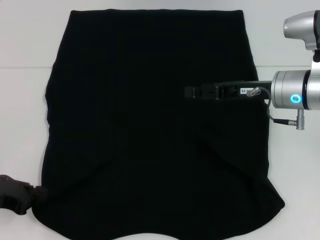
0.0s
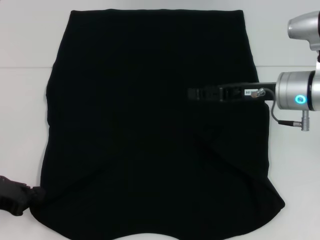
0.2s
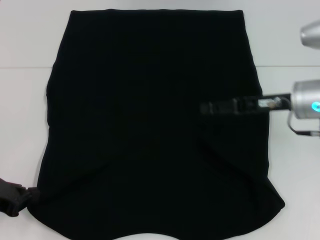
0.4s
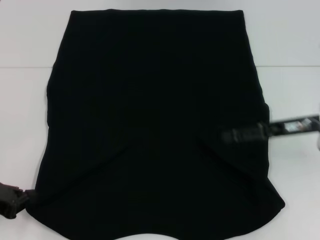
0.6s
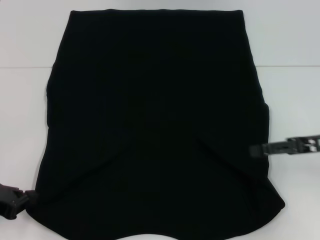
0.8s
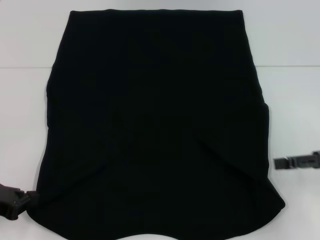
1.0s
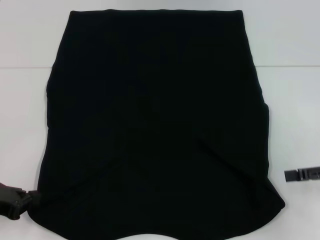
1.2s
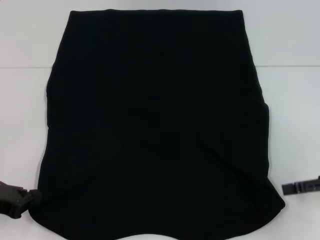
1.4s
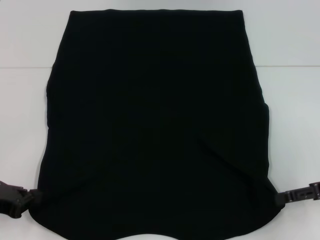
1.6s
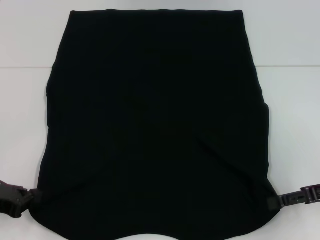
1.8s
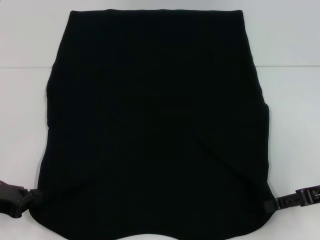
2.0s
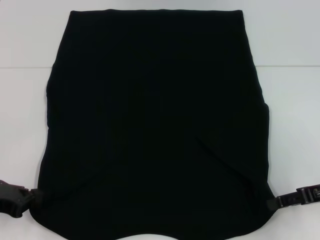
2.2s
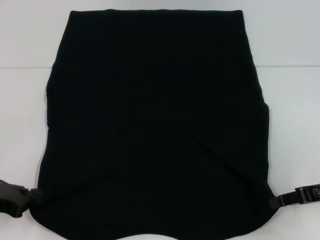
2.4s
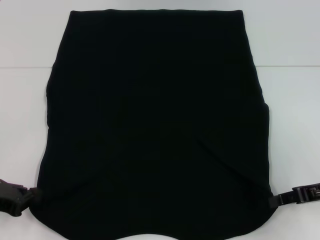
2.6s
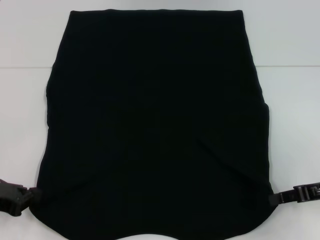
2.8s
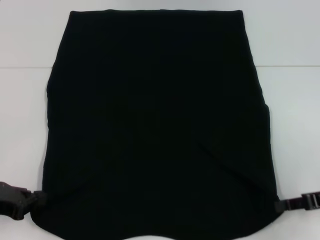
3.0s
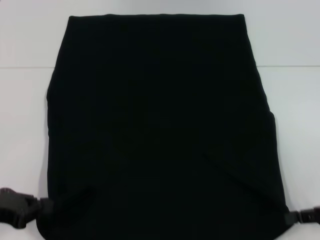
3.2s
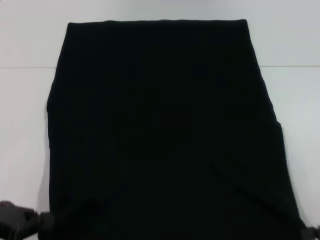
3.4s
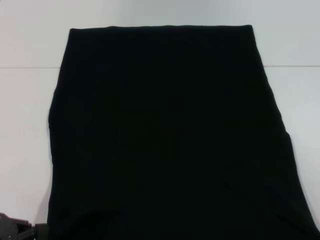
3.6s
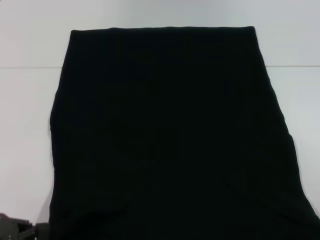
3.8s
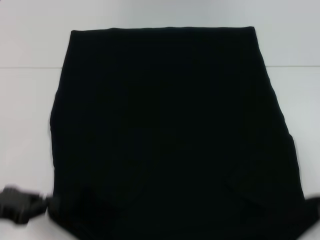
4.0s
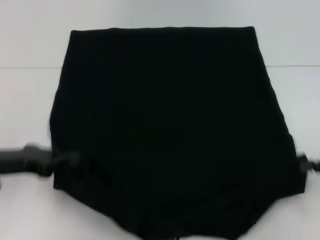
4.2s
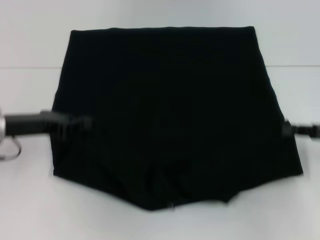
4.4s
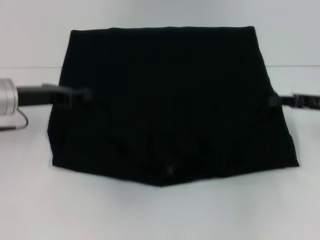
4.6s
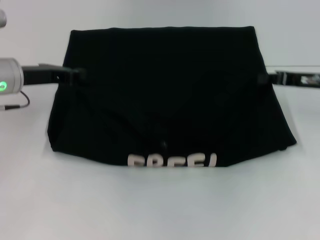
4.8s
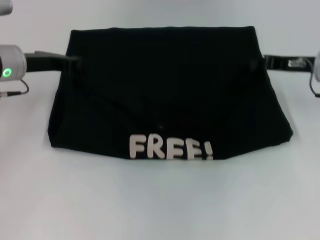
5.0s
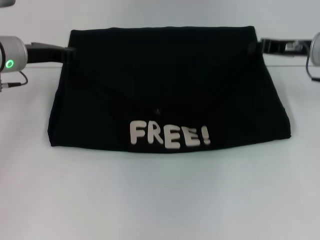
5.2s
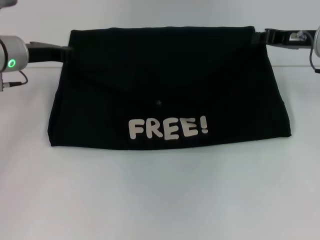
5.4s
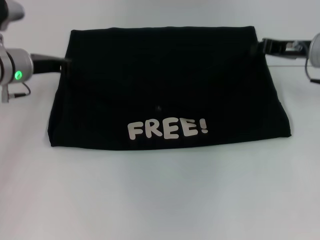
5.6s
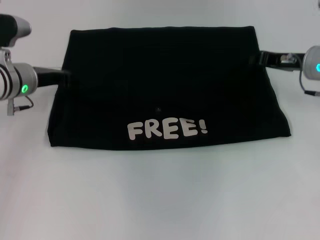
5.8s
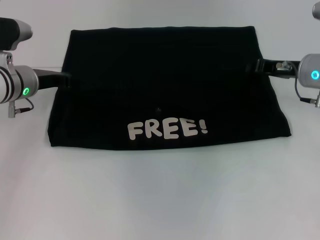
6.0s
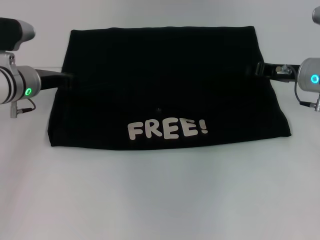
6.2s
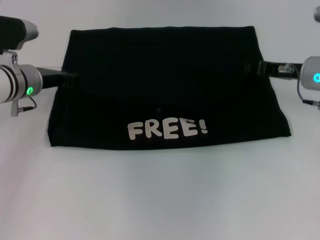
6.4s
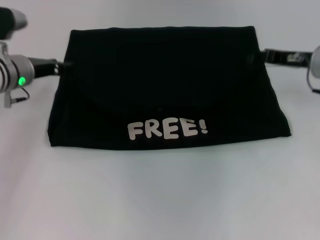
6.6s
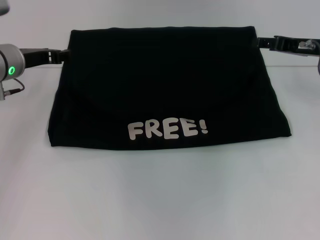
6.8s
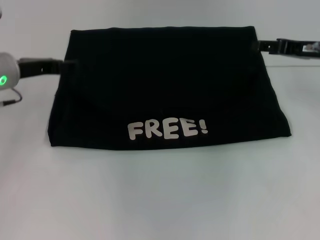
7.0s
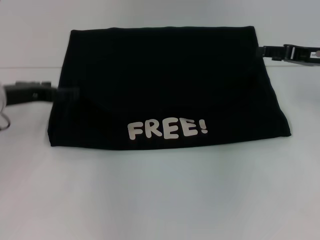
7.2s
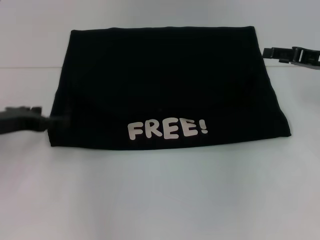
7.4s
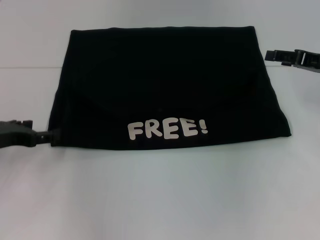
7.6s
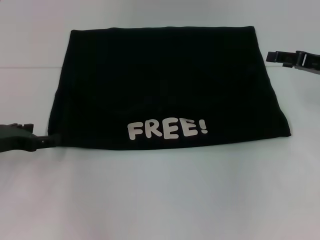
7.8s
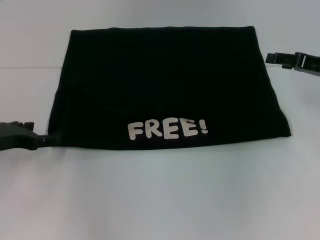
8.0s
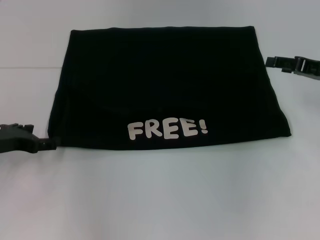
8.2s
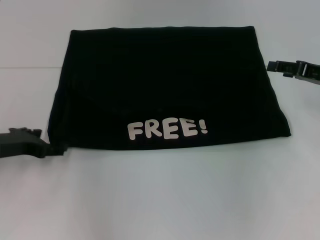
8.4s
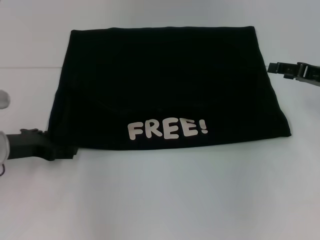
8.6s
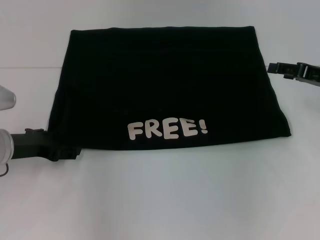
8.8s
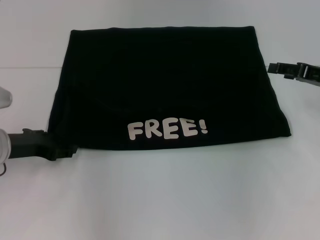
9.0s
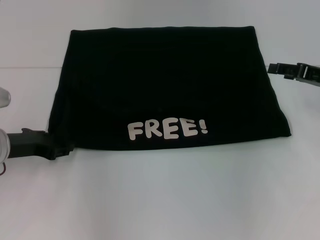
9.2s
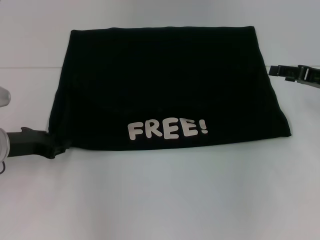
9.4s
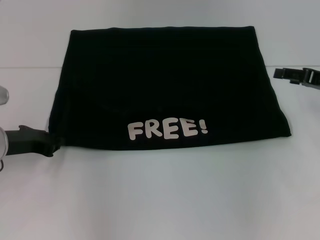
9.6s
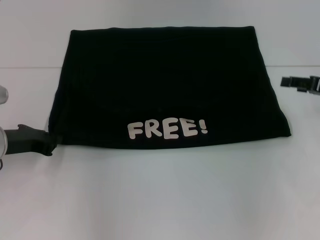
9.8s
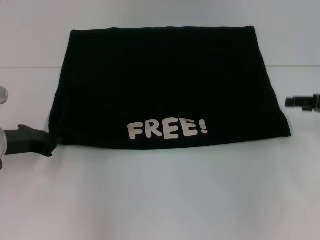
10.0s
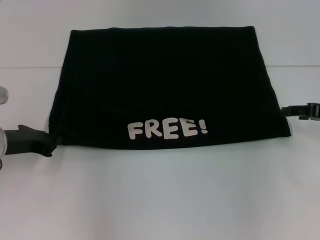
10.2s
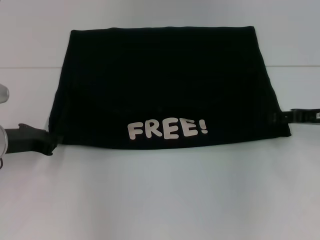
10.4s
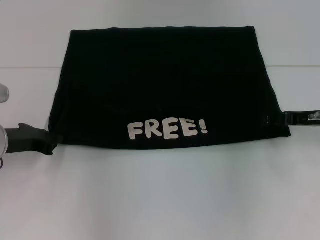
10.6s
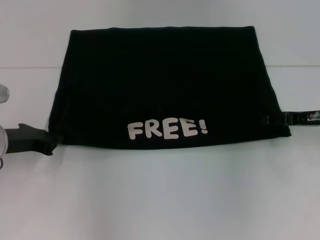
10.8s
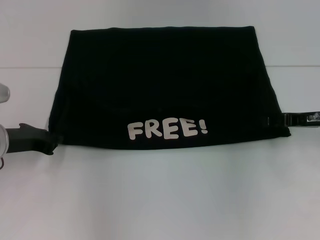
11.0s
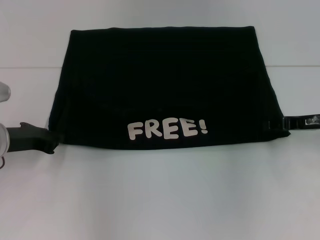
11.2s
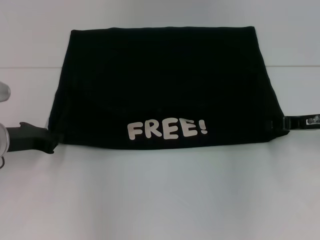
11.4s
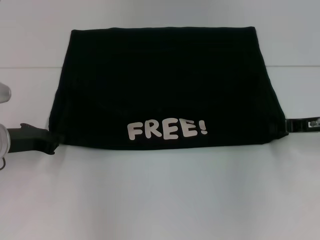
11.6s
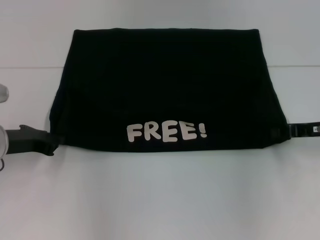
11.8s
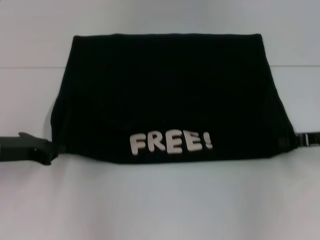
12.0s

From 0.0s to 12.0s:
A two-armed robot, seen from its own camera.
Step, from 0.0s to 3.4s: Grab the bottom left corner with your left hand.
Step, from 0.0s to 3.4s: Grab the bottom right corner with your right hand.
Step, from 3.6s to 6.4s: Fold the clothes with your left hand.
Step, from 3.6s to 6.4s: Fold the clothes with your right hand.
From 0.0s to 1.6s: The right gripper heads to the right and backward, covering about 15 cm.
From 1.6s to 3.0s: The right gripper closes.
From 3.0s to 4.4s: The left gripper goes about 10 cm forward. Meanwhile the right gripper goes backward and returns, roughly 10 cm each way.
From 4.4s to 6.0s: The right gripper heads forward and to the left, covering roughly 15 cm. The left gripper heads forward, covering roughly 10 cm.
From 6.0s to 7.6s: The right gripper heads to the right, covering about 5 cm, and opens its fingers; the left gripper heads backward and to the left, covering about 15 cm, and opens.
From 7.6s to 9.0s: The grippers make only small movements.
From 9.0s to 10.4s: The left gripper closes up.
From 10.4s to 12.0s: The right gripper closes up.

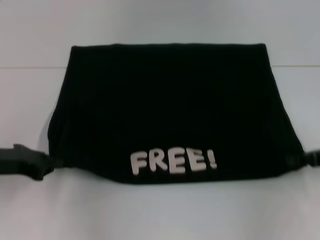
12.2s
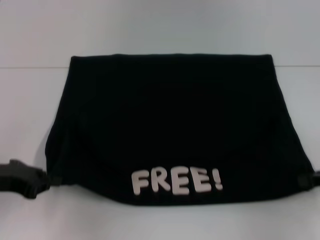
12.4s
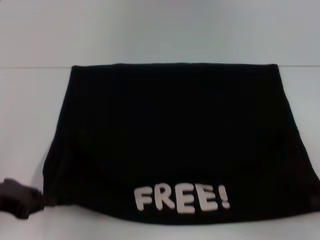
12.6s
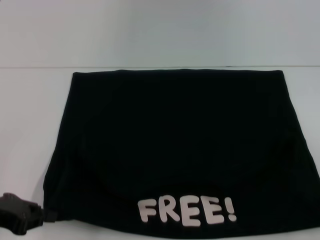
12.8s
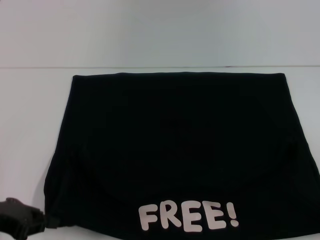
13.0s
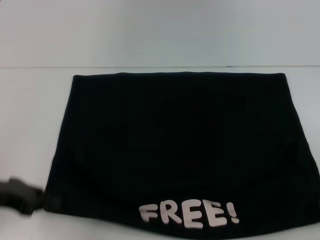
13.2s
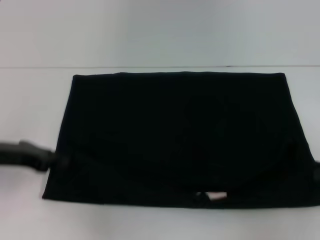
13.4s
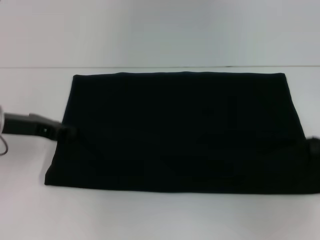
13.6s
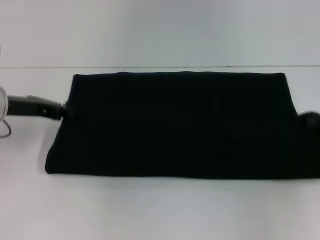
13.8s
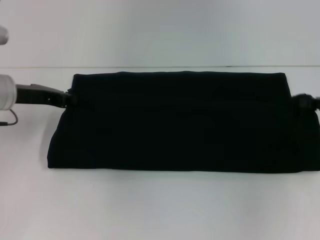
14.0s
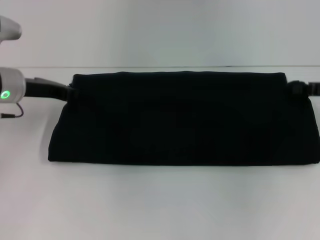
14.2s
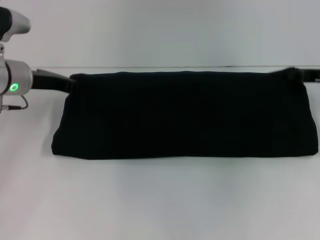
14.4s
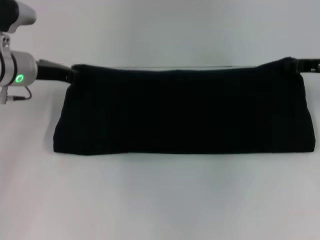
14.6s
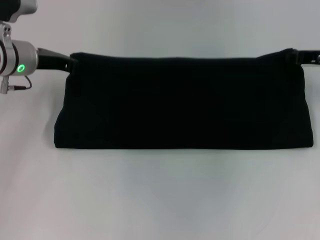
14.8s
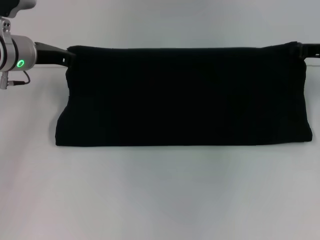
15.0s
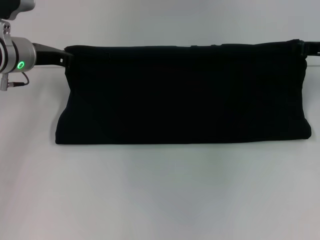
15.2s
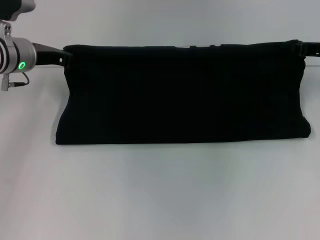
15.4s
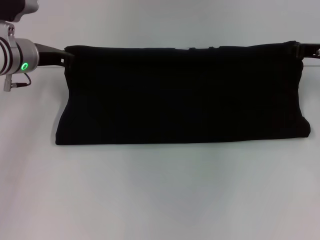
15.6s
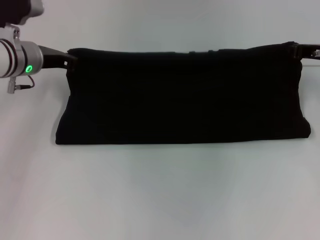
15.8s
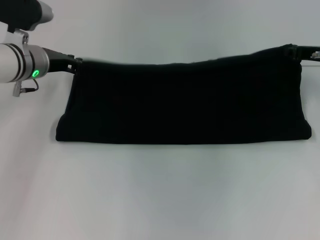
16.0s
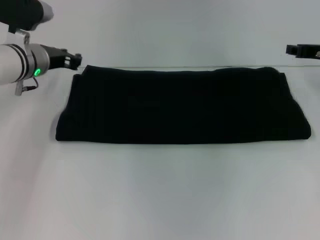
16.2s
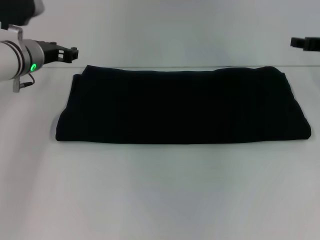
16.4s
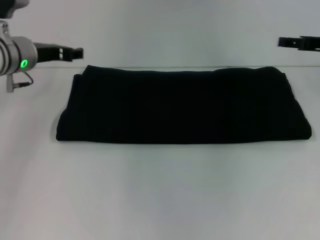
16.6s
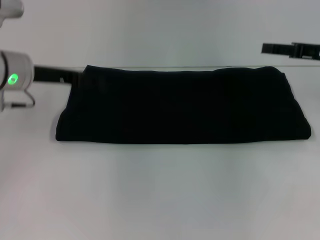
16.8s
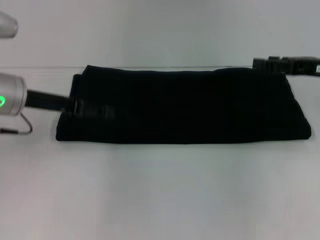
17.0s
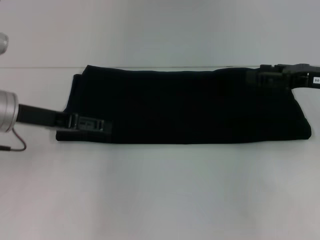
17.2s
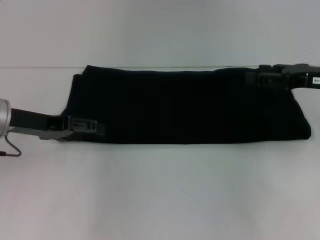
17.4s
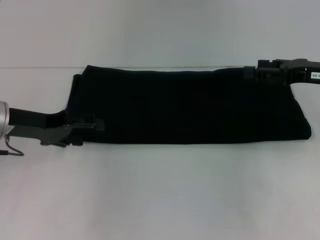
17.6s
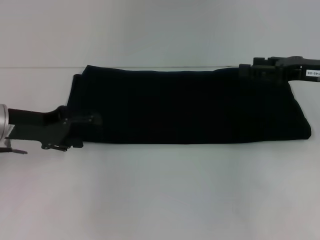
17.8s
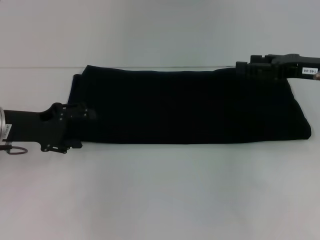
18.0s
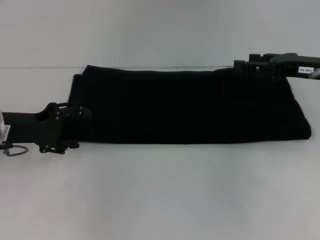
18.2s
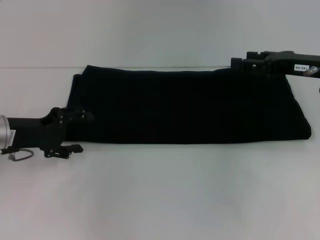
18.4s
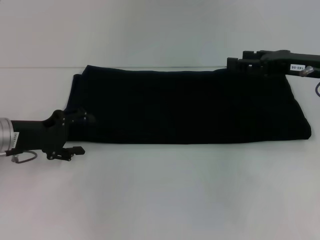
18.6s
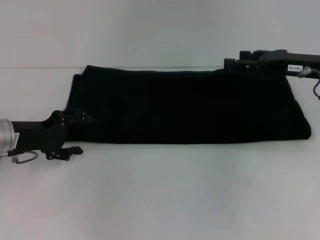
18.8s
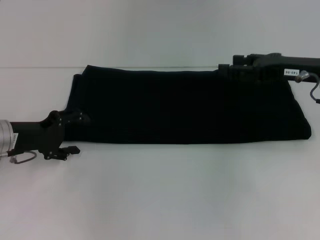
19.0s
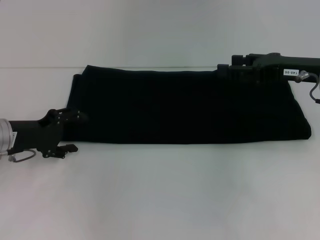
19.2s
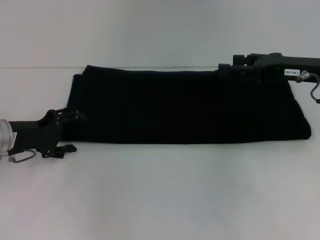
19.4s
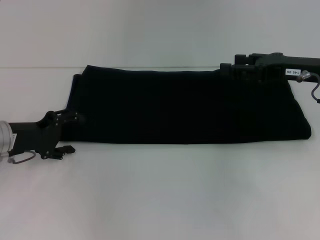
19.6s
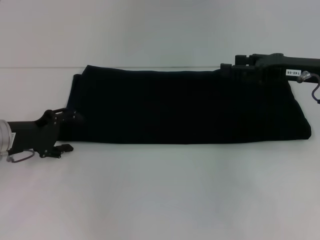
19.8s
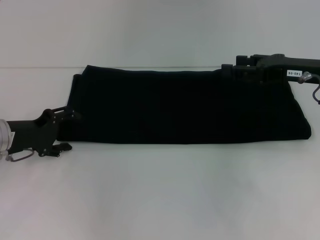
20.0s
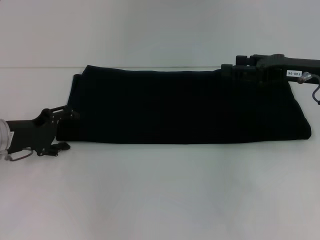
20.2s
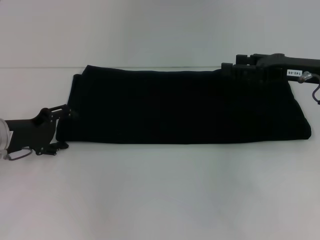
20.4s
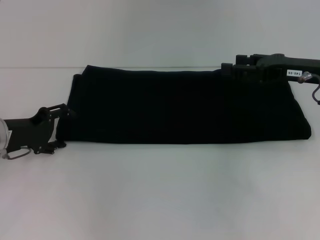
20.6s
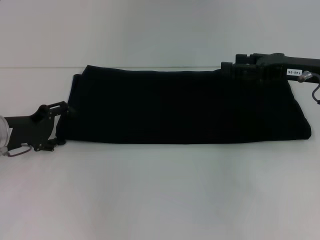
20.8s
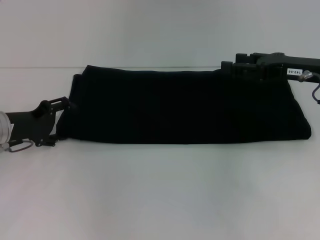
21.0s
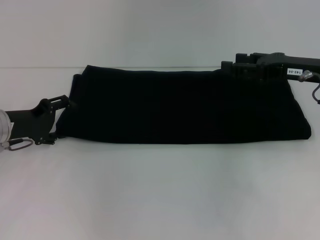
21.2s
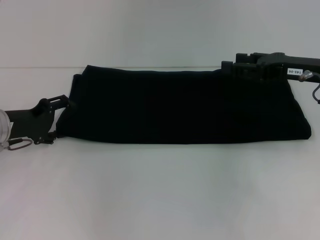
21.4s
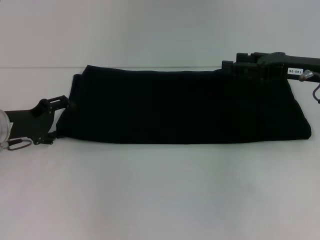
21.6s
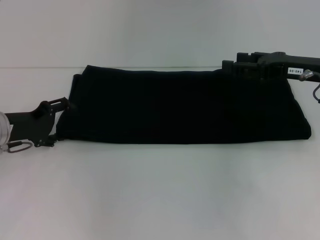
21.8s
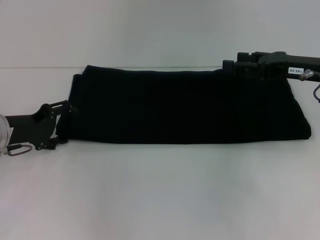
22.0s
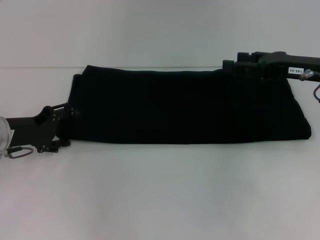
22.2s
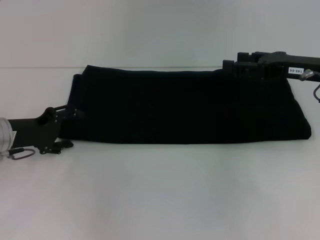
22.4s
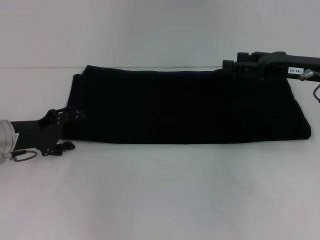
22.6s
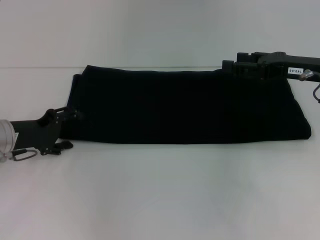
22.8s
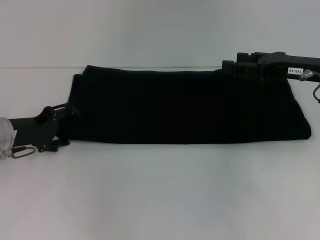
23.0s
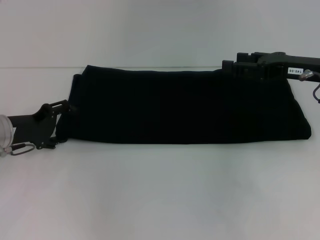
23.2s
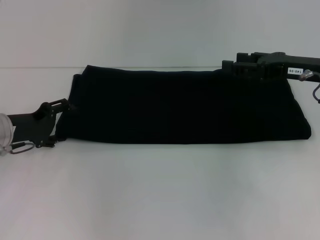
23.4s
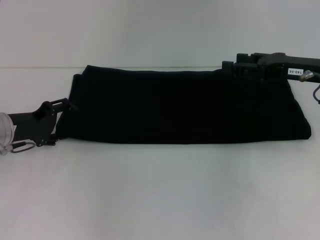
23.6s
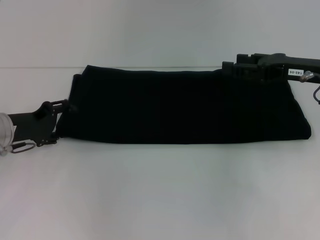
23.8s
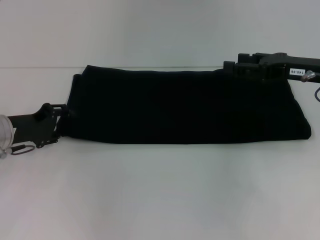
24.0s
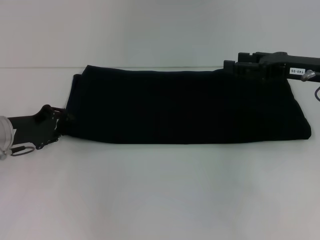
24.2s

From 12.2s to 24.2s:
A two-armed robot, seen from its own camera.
Step, from 13.0s to 16.6s: Fold the clothes with your right hand.
From 12.2s to 13.8s: The right gripper reaches approximately 10 cm backward, then returns; the left gripper heads forward, covering roughly 10 cm.
From 13.8s to 15.2s: The right gripper shifts some 15 cm forward and to the left; the left gripper travels forward by about 10 cm.
From 15.2s to 16.6s: The right gripper opens its fingers. Meanwhile the left gripper opens up.
From 16.6s to 18.2s: The right gripper shifts by about 5 cm; the left gripper heads backward and to the left, covering about 10 cm, and opens up.
From 18.2s to 24.2s: The grippers make only small movements.
